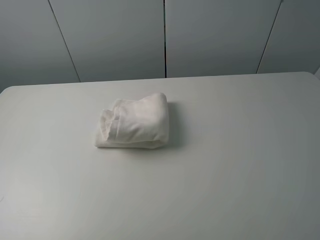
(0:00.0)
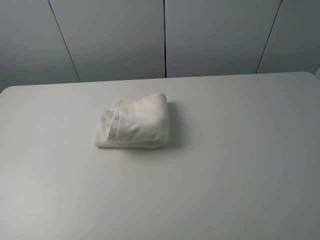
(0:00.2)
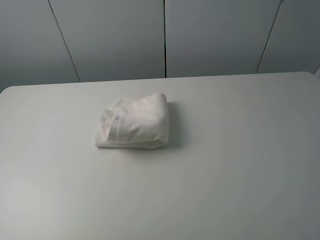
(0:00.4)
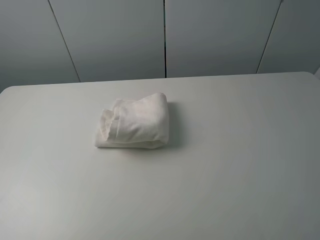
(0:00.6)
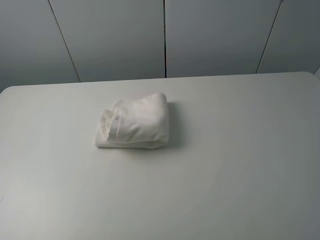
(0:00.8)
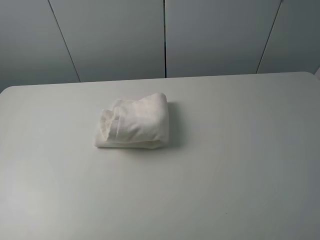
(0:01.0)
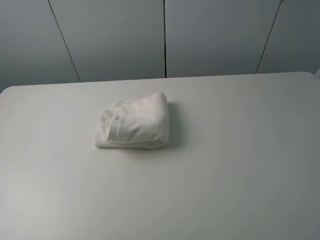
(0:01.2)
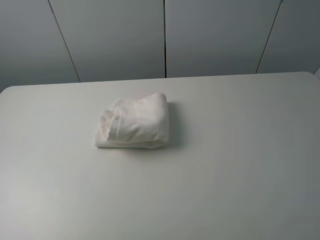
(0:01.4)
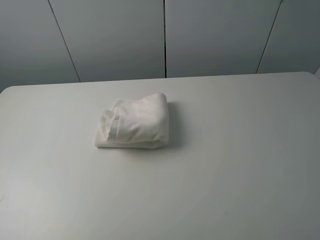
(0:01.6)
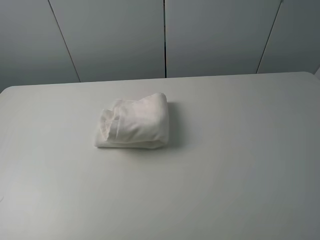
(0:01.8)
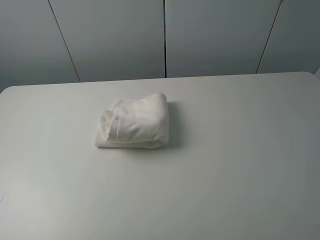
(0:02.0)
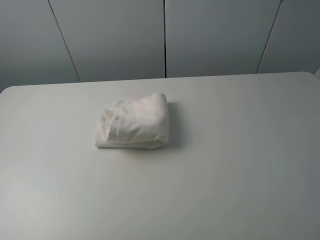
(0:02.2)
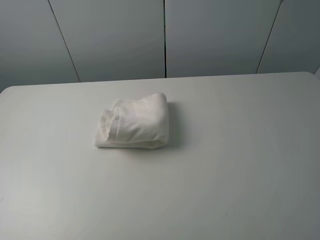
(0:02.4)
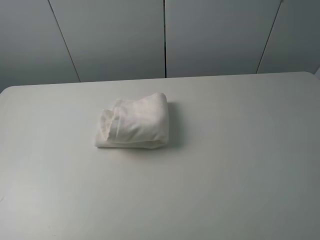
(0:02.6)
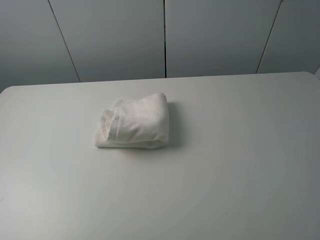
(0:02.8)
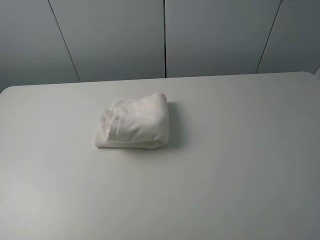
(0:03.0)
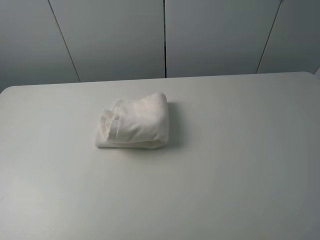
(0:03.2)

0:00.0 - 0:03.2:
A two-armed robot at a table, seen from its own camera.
Task of the whole recording: fold the towels on the table.
0:01.6 - 0:03.2: Both grippers stay about where they are.
